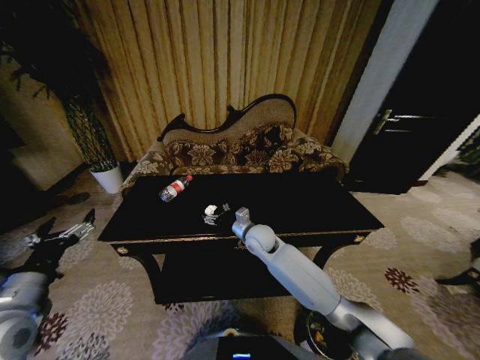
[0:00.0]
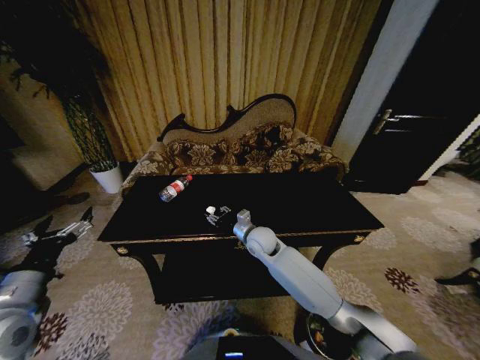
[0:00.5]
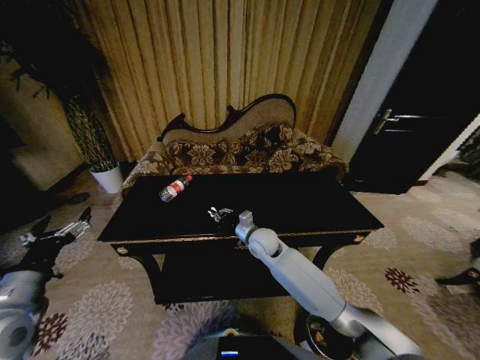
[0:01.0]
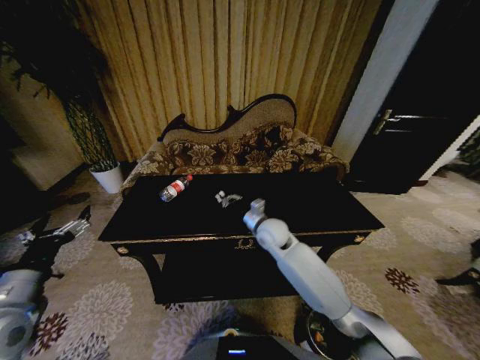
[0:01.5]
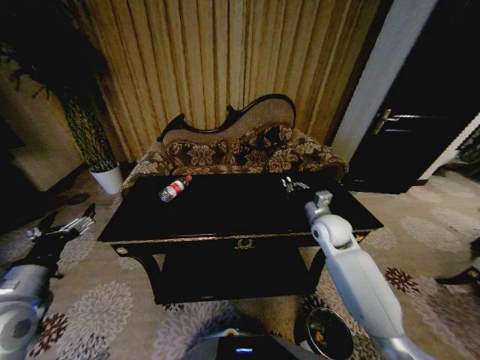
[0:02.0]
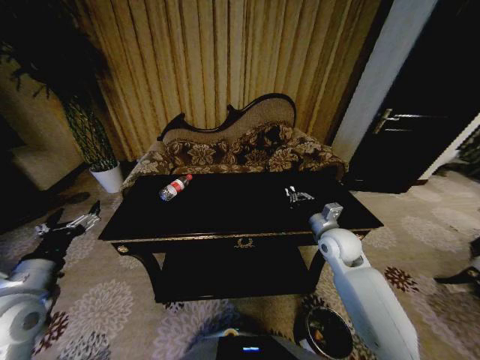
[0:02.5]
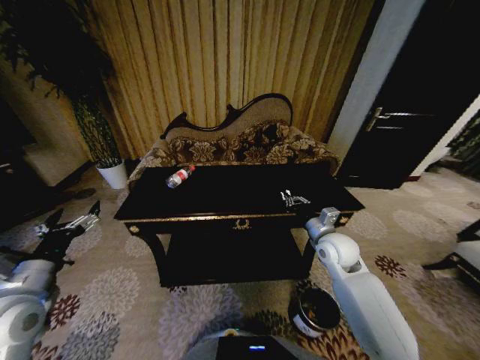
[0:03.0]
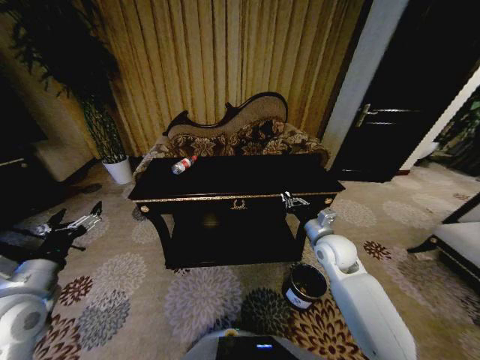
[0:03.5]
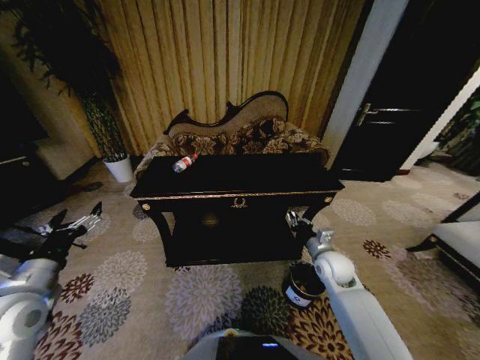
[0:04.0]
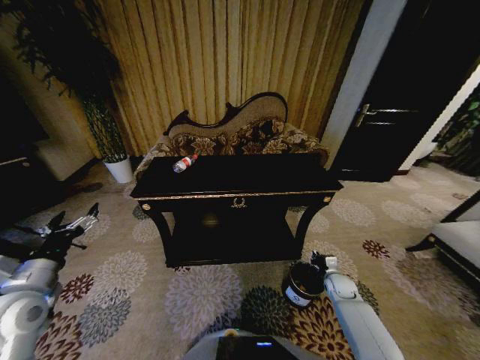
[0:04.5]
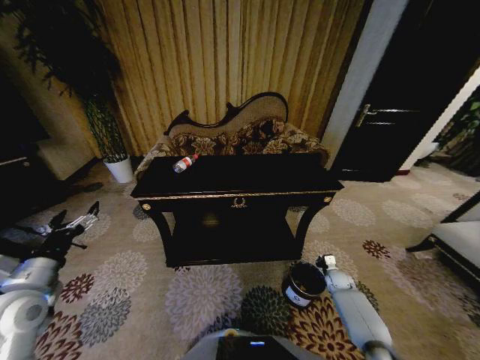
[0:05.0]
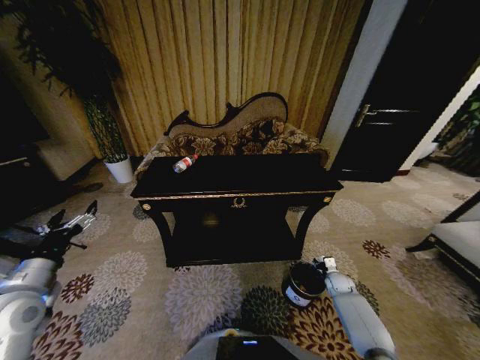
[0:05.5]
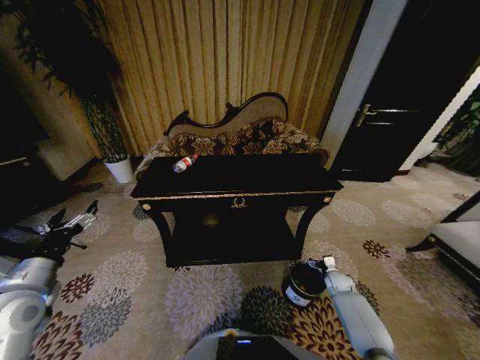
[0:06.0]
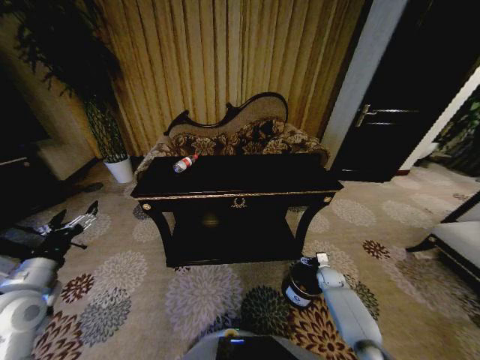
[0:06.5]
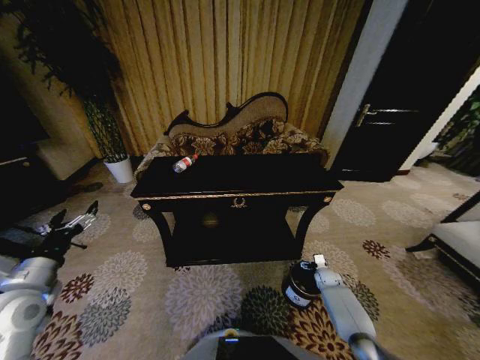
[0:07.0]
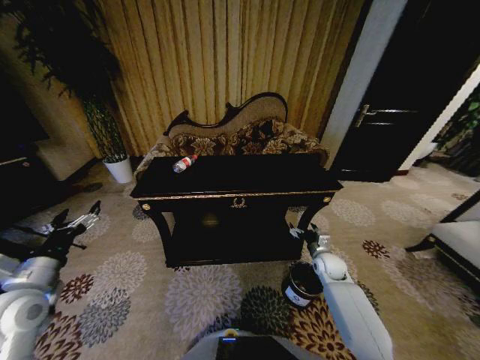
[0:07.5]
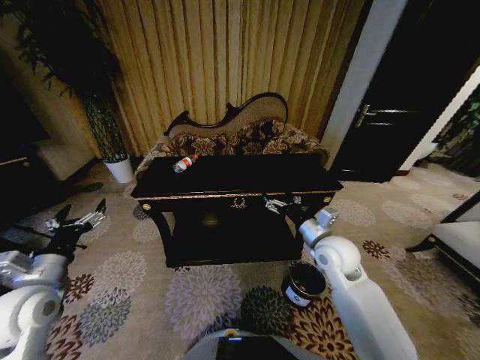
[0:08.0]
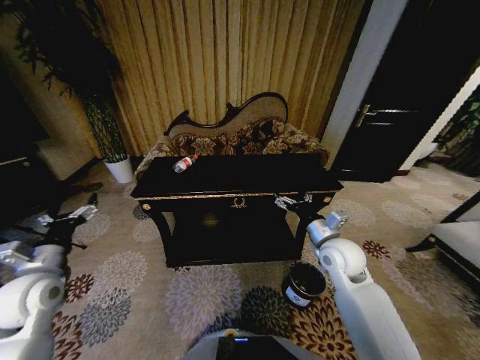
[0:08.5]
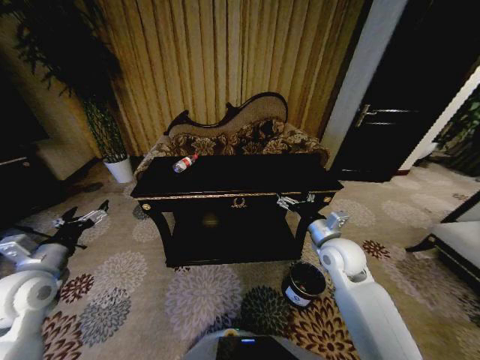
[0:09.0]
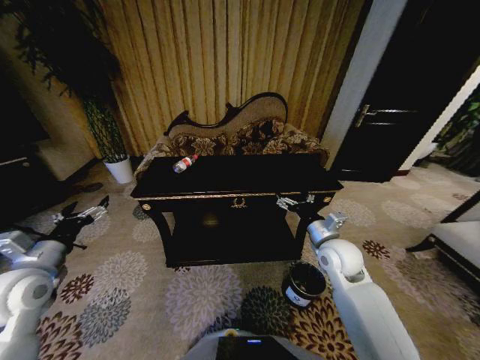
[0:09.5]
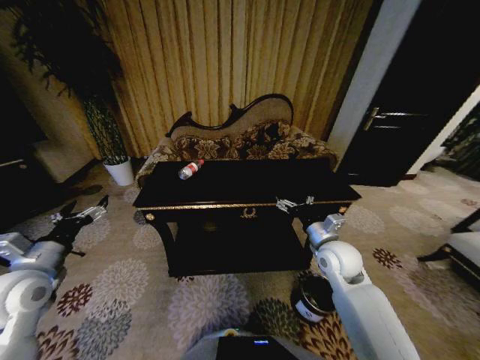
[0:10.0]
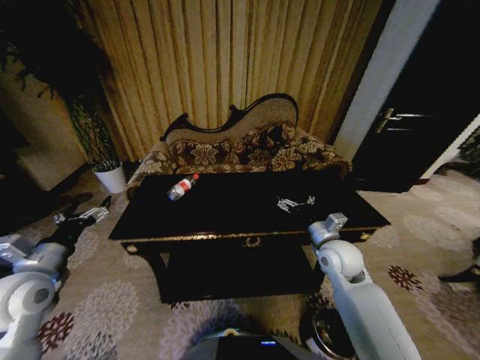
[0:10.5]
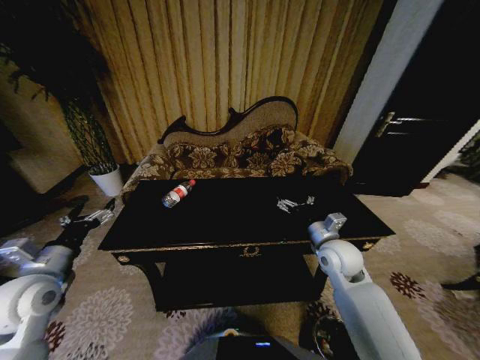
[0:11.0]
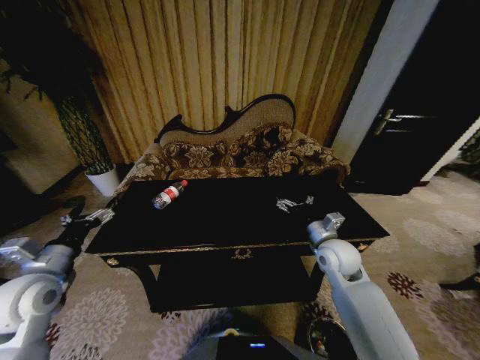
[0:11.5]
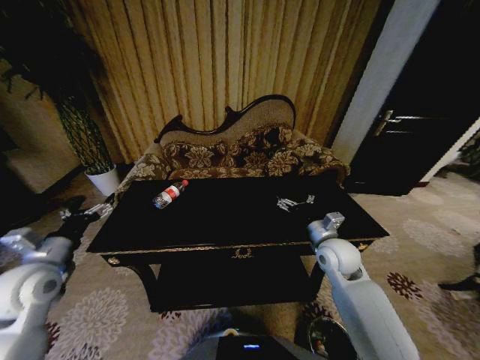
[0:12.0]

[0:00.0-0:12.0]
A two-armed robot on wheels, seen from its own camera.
Task of the whole recording: Move to the front of the table and place the trash on the table into the trash bin.
0.0 to 2.0 s: The right gripper travels to the right by about 20 cm, and closes up.
2.0 to 4.0 s: The right gripper moves downward and backward, some 10 cm.
4.0 to 6.0 s: The right gripper is displaced downward and to the right by roughly 25 cm, and opens.
6.0 to 8.0 s: The right gripper shifts some 35 cm upward and to the left.

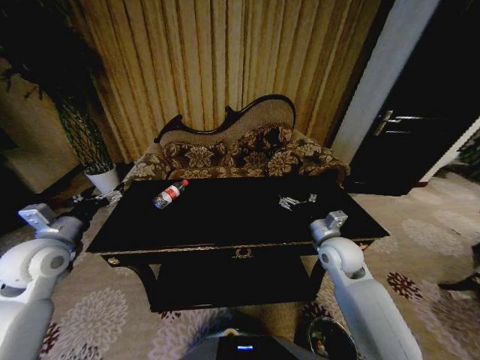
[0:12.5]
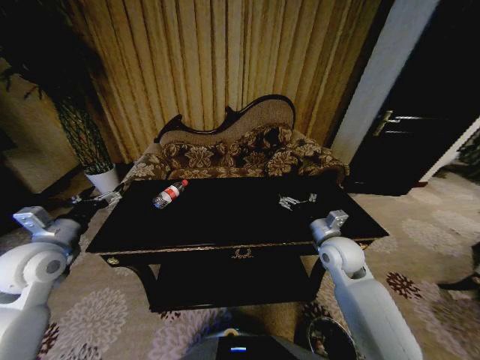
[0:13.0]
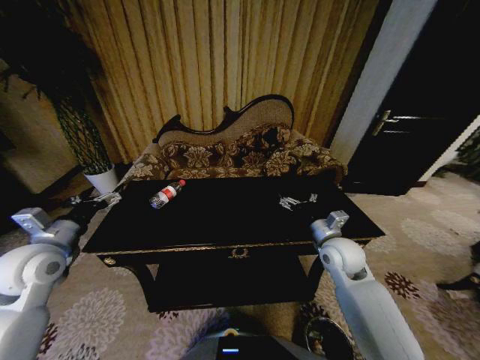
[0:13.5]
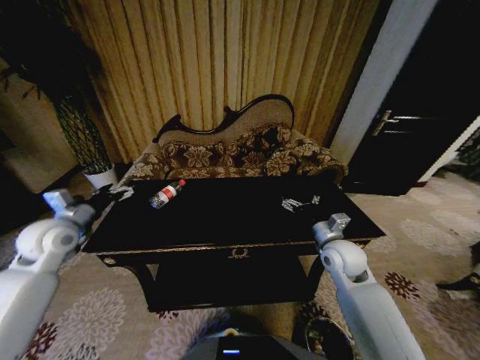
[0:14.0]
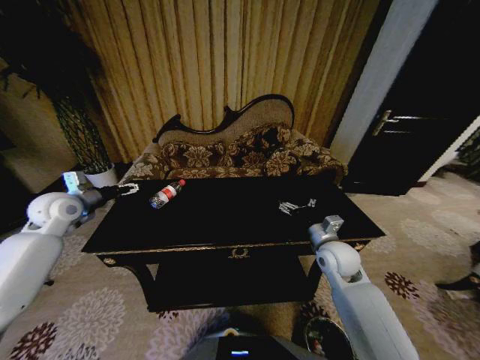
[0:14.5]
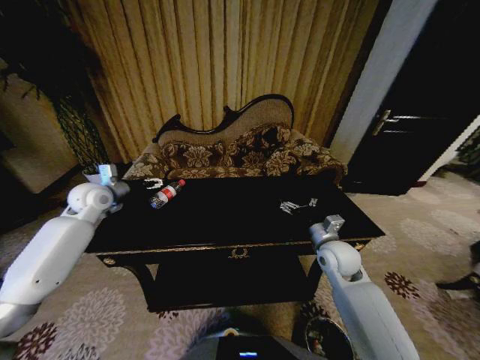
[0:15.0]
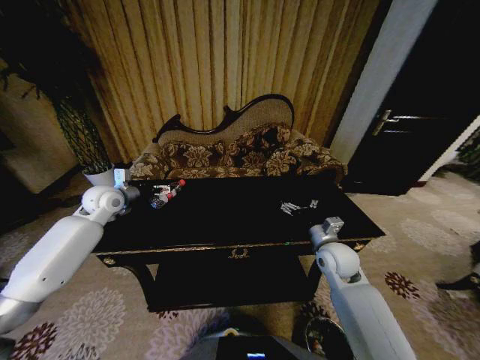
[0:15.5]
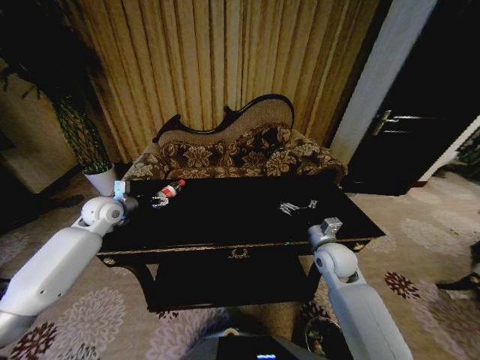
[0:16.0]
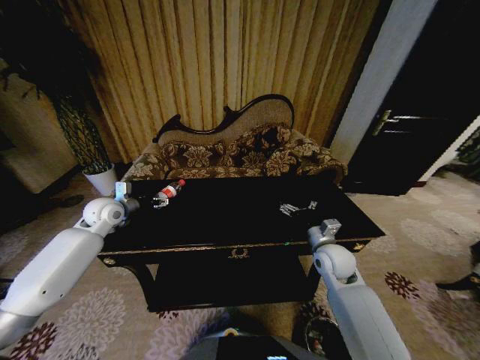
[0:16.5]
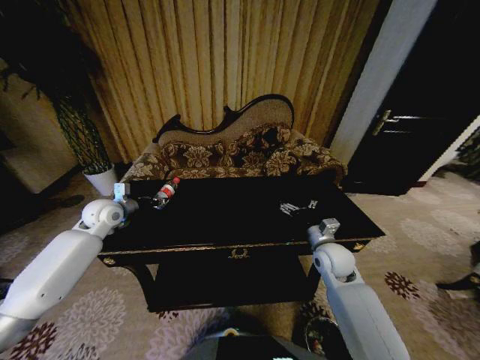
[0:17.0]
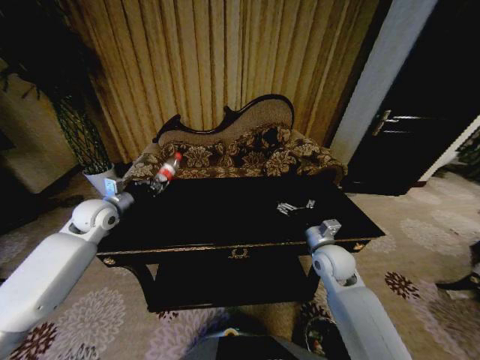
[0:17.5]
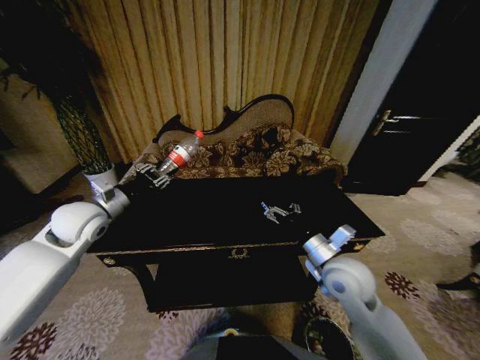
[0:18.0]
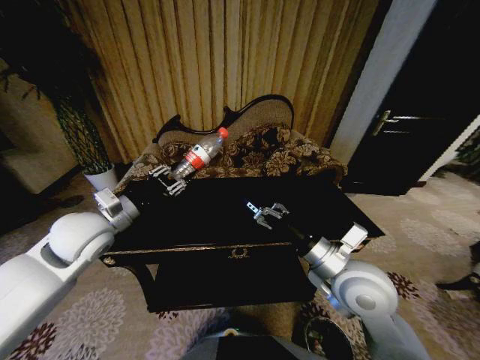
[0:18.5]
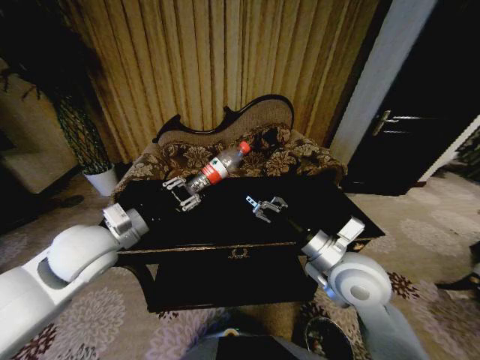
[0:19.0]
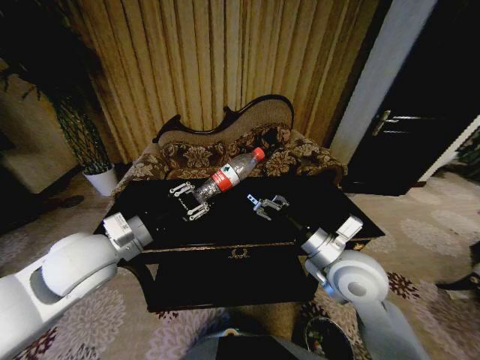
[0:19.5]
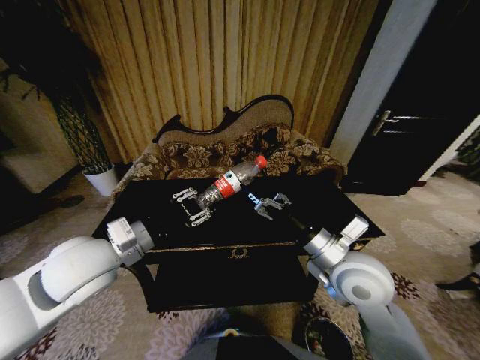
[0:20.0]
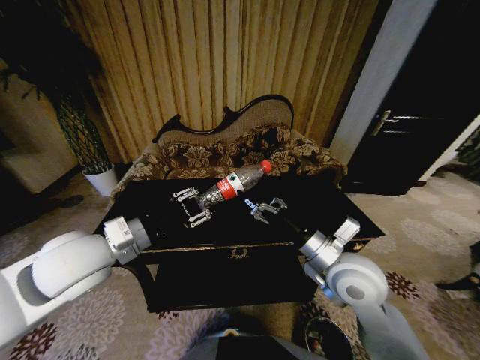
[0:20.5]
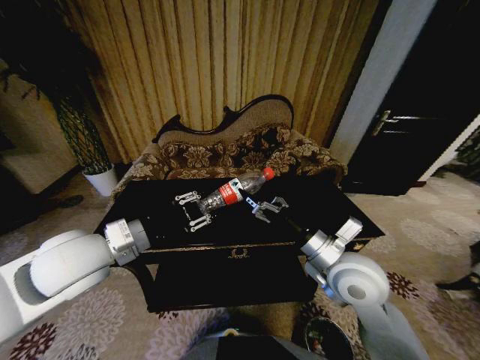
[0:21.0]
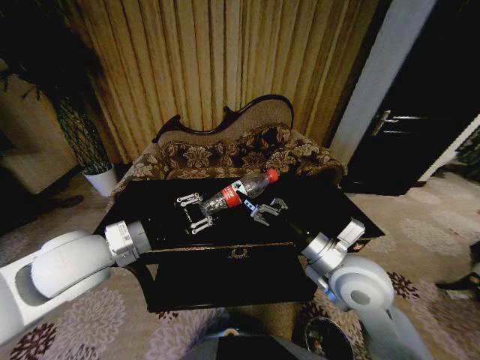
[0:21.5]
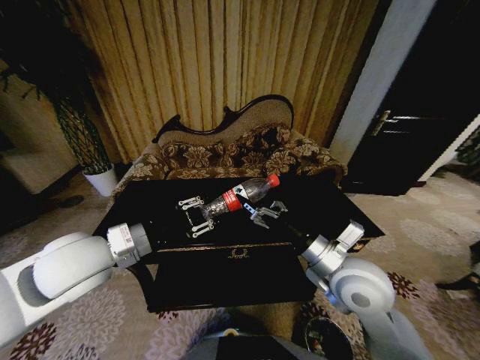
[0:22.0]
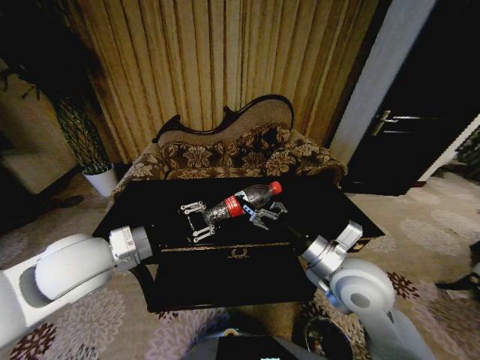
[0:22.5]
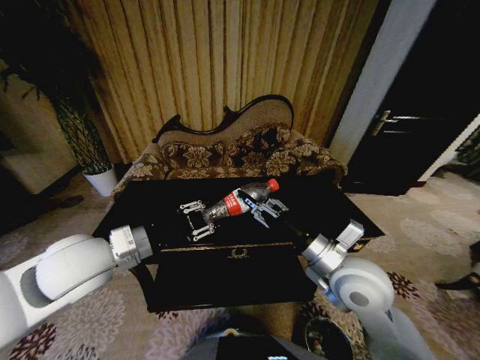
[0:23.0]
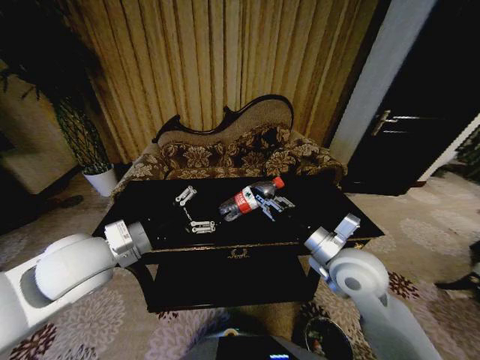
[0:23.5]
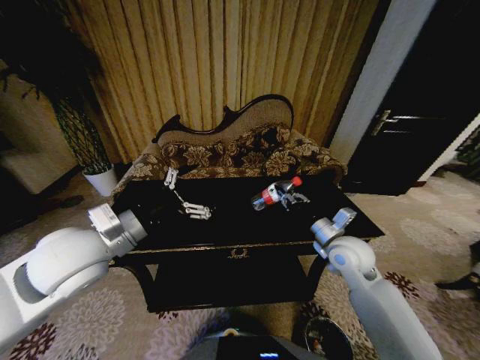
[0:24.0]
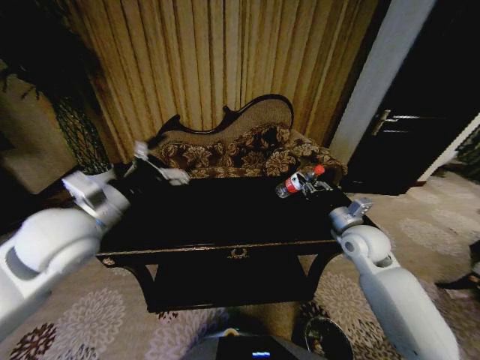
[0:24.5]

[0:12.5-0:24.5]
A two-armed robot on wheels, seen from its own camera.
Task of the whole recording: Move to the front of the table and place the trash on the table into the trash bin.
12.5 to 14.5 s: The left gripper travels forward by approximately 15 cm.
14.5 to 16.5 s: The left gripper travels to the right and downward by roughly 10 cm.
16.5 to 18.5 s: The right gripper goes approximately 15 cm upward, backward and to the left. The left gripper moves backward, upward and to the right, approximately 15 cm, and closes up.
18.5 to 20.5 s: The left gripper shifts roughly 5 cm backward.
20.5 to 22.5 s: The grippers make only small movements.
22.5 to 24.5 s: The right gripper goes roughly 15 cm to the right and forward, and closes its fingers, while the left gripper shifts by some 5 cm, and opens.

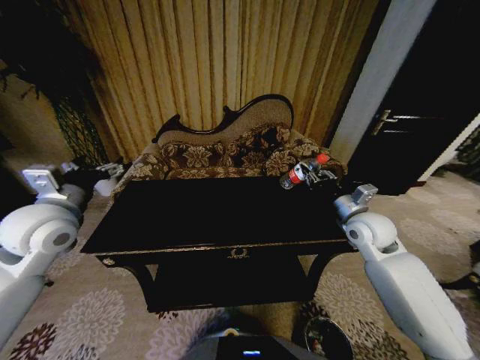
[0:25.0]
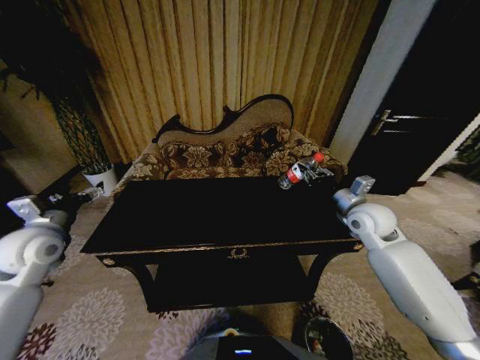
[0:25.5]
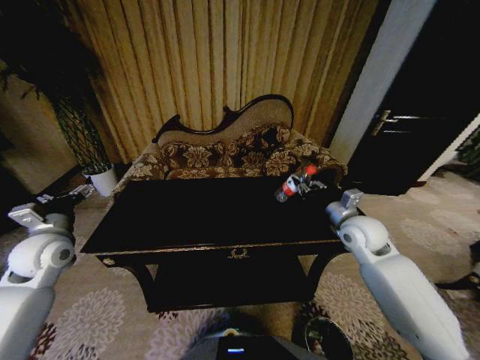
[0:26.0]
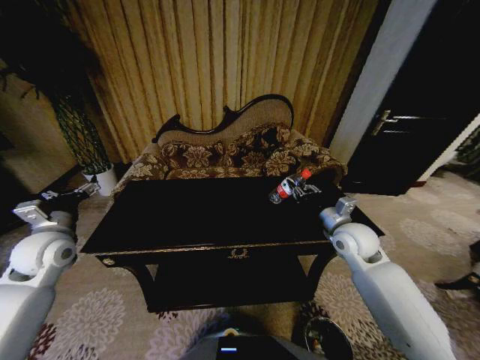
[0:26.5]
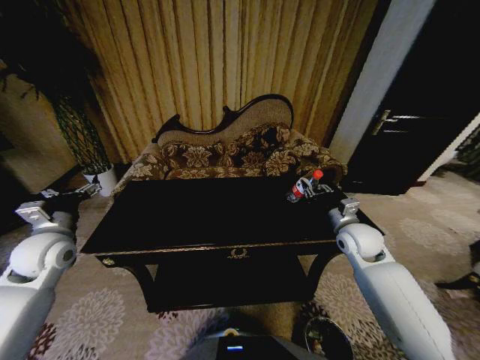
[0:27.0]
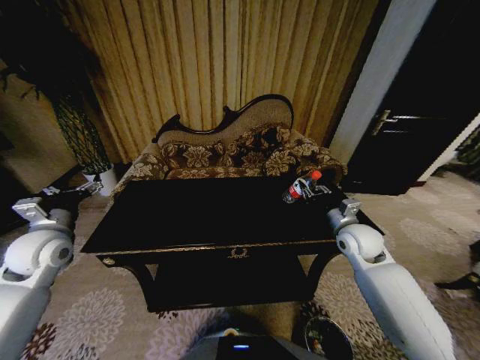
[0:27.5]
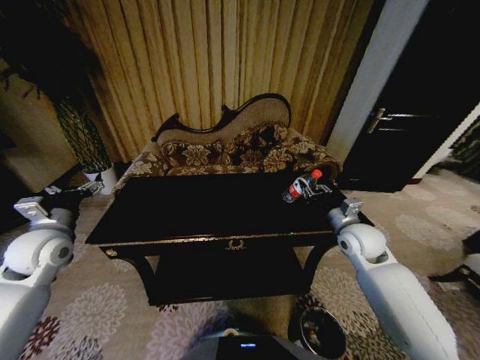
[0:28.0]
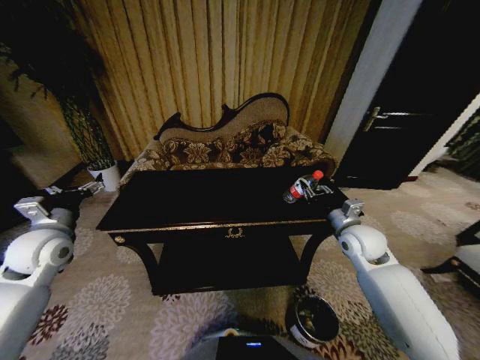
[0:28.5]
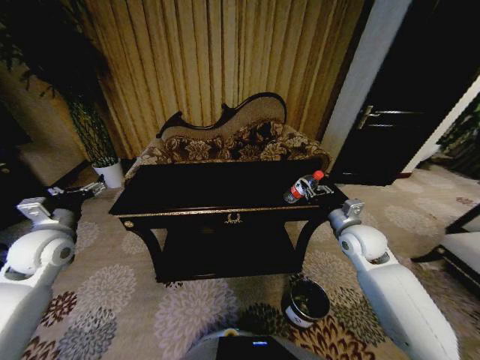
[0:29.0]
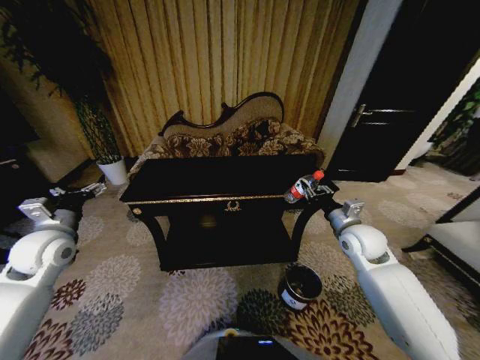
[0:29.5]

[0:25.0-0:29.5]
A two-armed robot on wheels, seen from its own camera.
Task of the whole recording: Move to the front of the table and place the trash on the table into the trash bin.
25.0 to 27.0 s: The left gripper goes about 10 cm downward and to the left.
